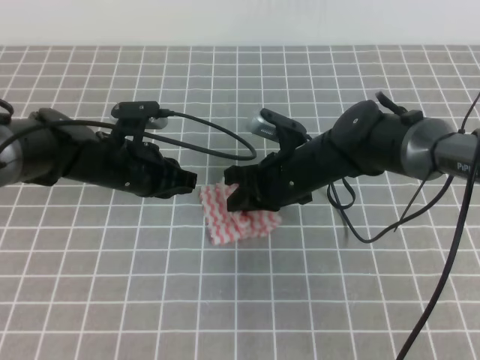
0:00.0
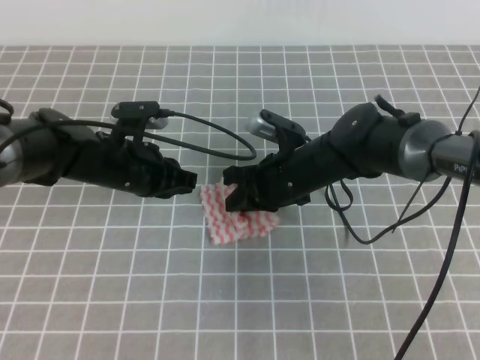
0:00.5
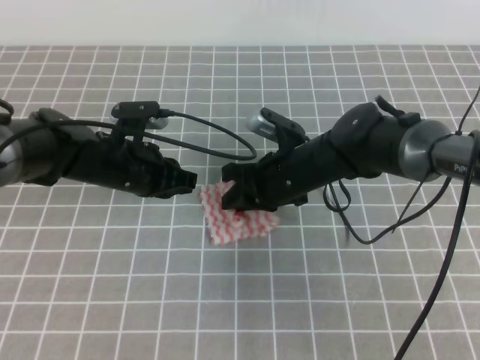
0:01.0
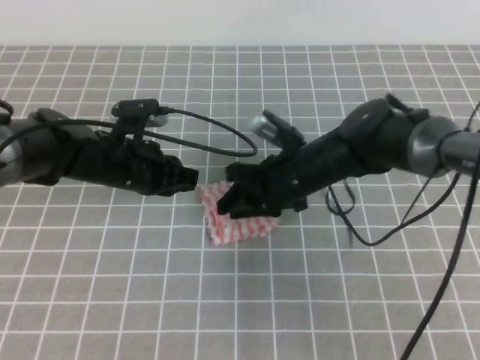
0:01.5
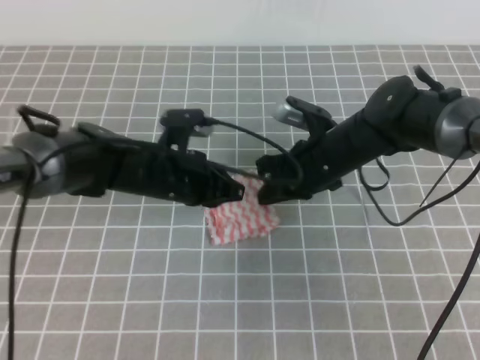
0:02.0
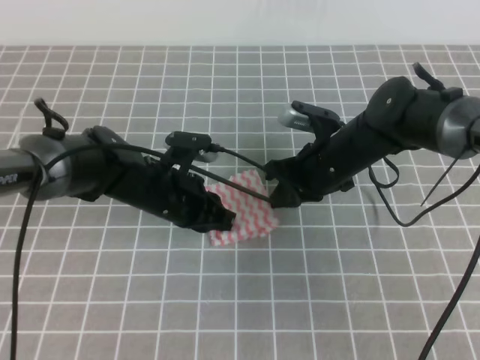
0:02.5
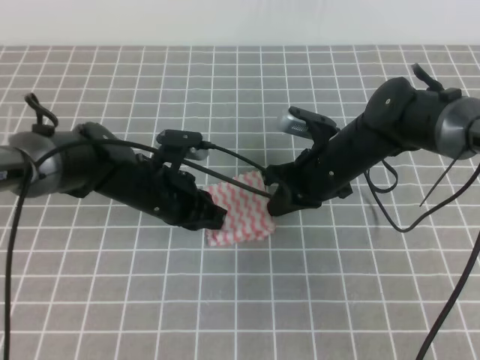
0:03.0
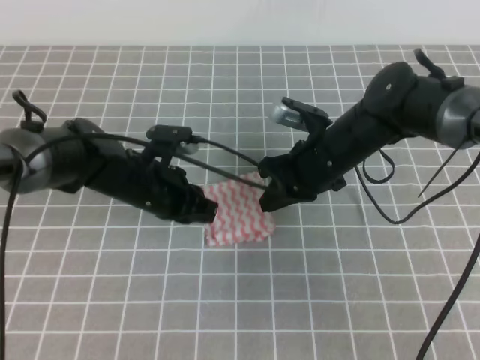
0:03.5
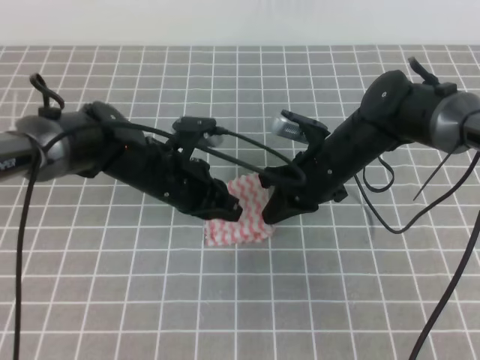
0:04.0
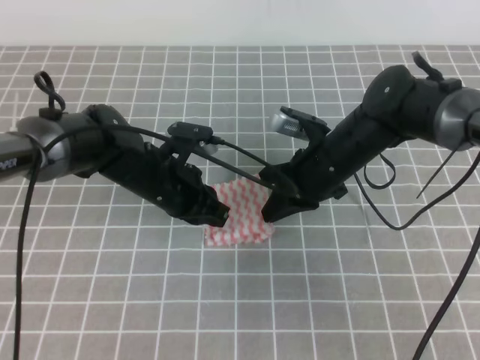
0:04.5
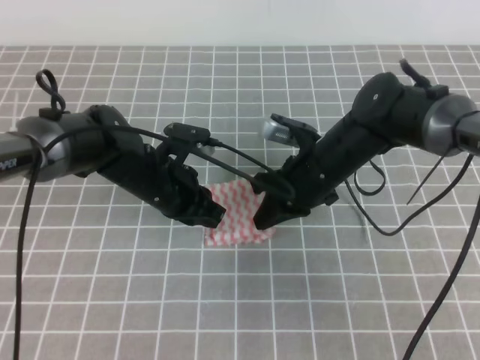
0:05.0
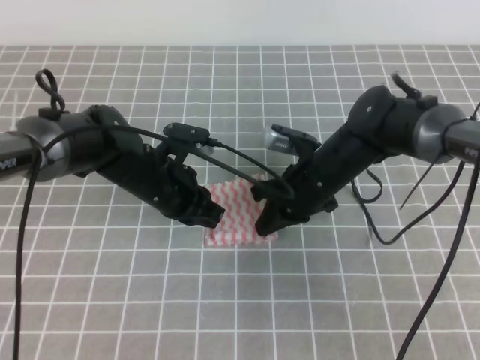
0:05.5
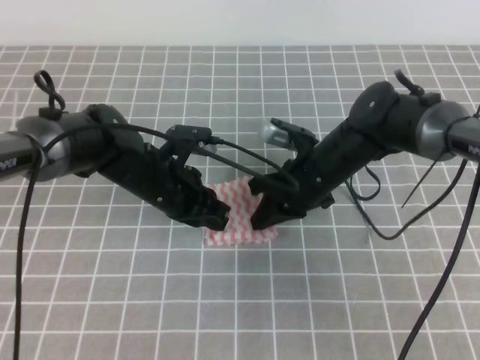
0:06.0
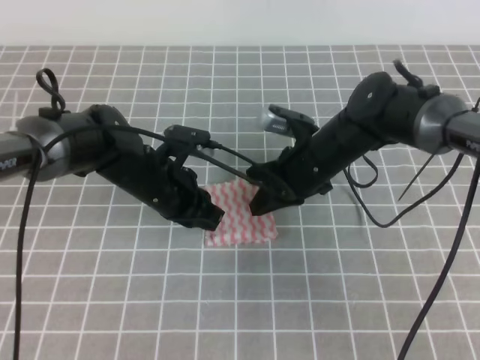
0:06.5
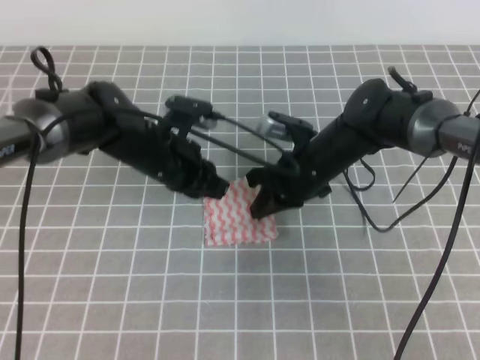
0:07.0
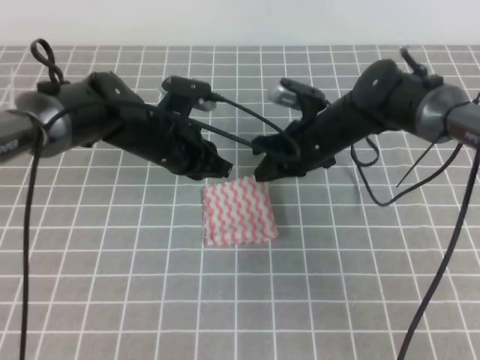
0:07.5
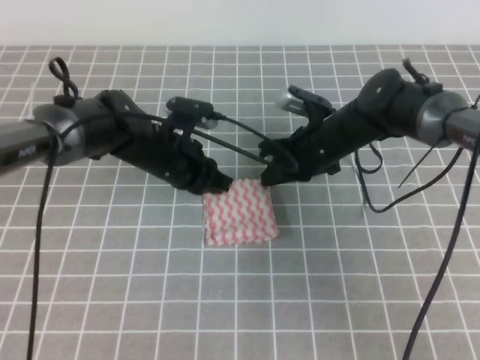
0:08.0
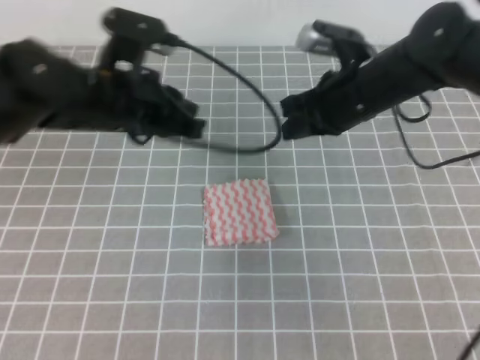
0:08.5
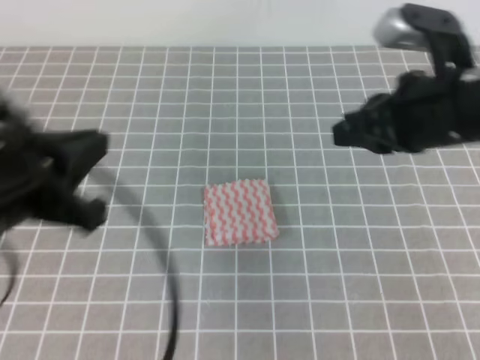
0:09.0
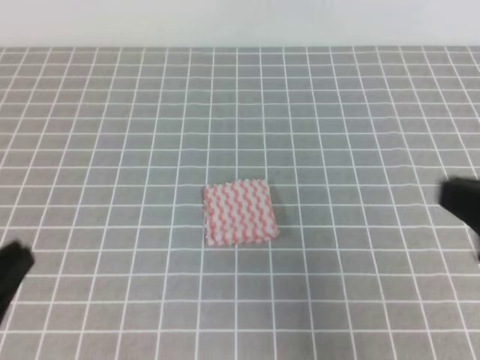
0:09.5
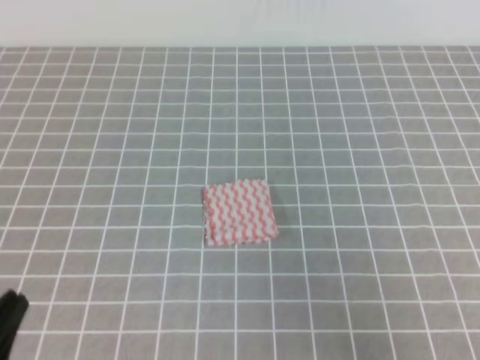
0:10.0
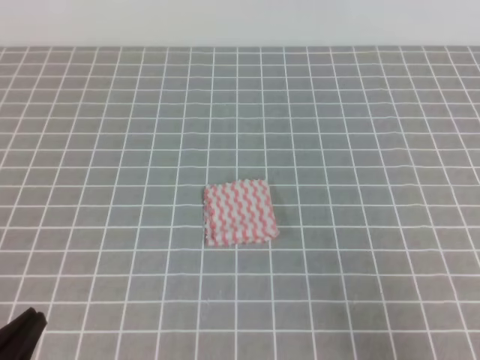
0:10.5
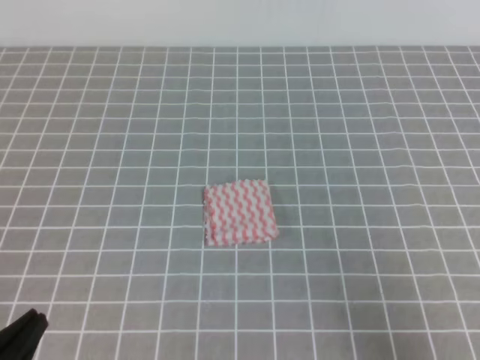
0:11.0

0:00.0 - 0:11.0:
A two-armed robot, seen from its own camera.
0:00.0 - 0:02.0: The right gripper opens, then closes again.
0:02.0 - 0:05.5: The grippers stay close to where they were, moving slightly.
0:07.5 - 0:09.0: The left gripper goes some 25 cm backward, upward and to the left. Meanwhile the right gripper heads upward, backward and to the right, covering about 25 cm.
0:09.0 - 0:11.0: The right gripper heads backward, to the right and downward, covering some 25 cm; the left gripper moves downward, backward and to the left, about 20 cm.
